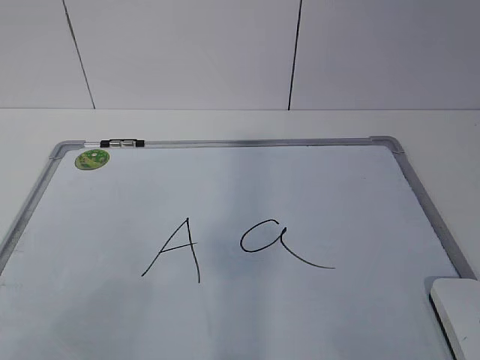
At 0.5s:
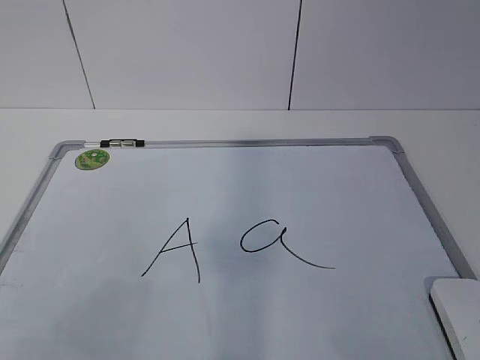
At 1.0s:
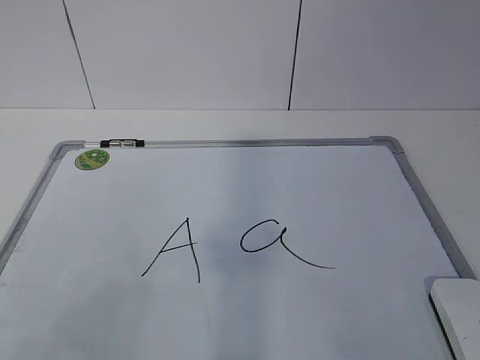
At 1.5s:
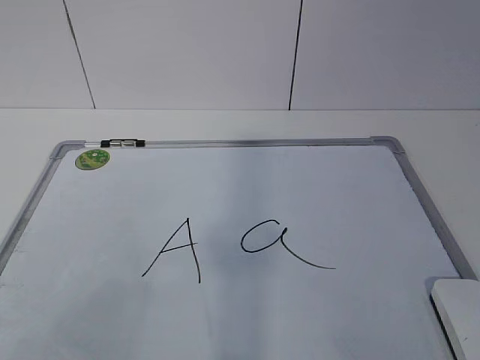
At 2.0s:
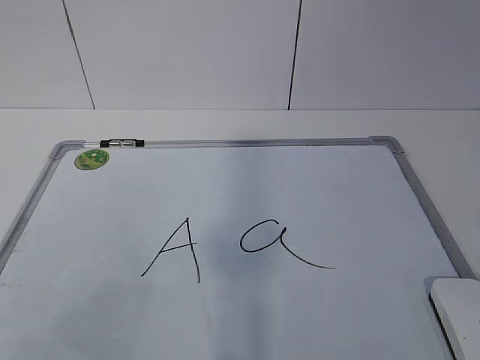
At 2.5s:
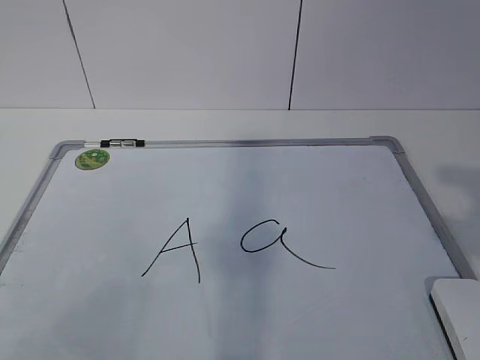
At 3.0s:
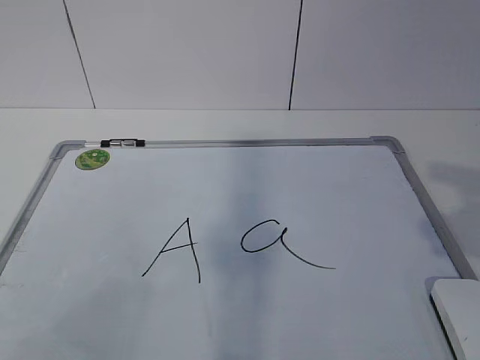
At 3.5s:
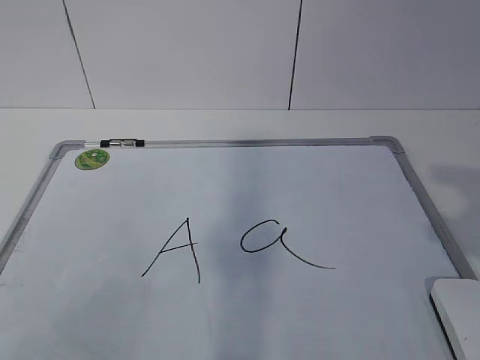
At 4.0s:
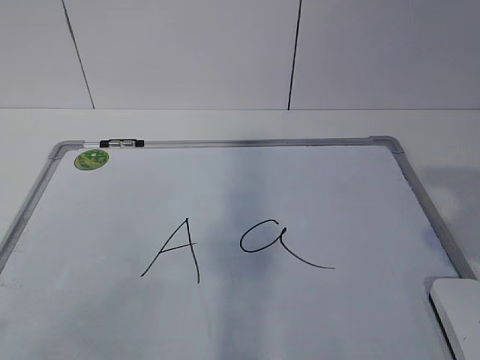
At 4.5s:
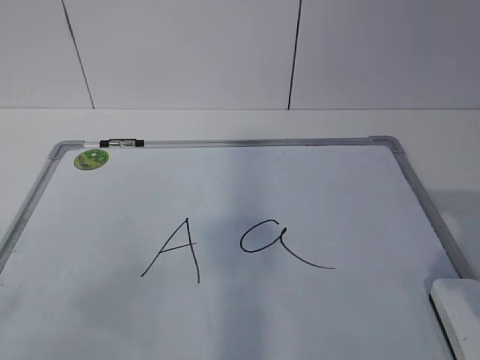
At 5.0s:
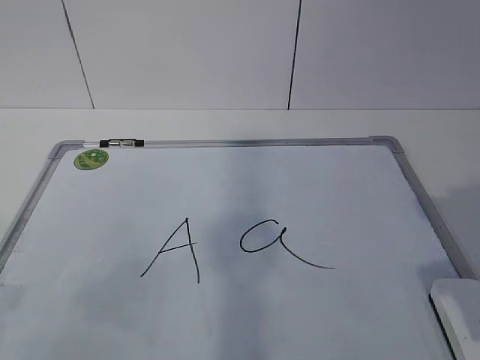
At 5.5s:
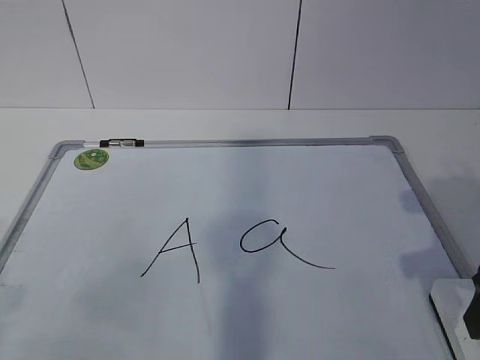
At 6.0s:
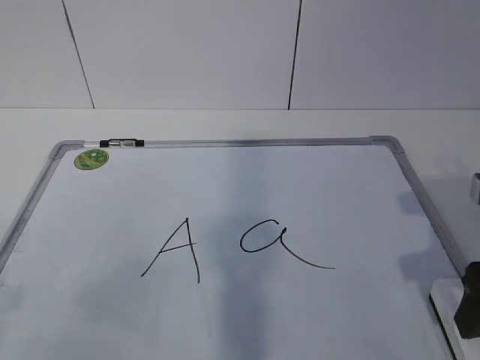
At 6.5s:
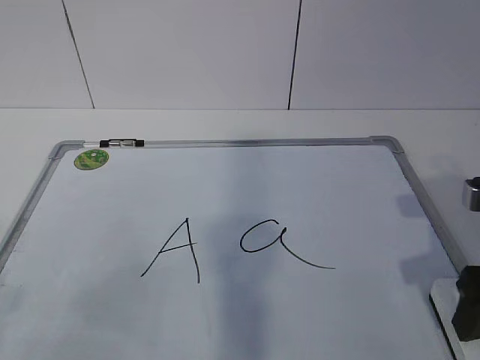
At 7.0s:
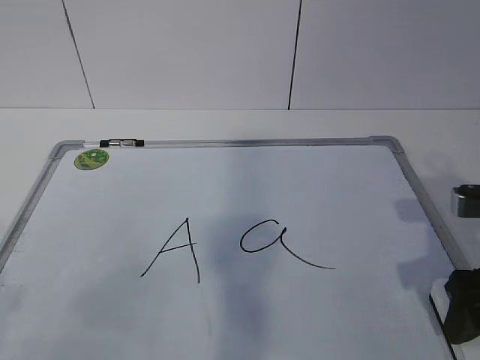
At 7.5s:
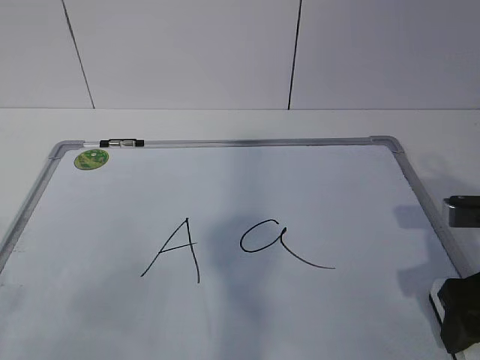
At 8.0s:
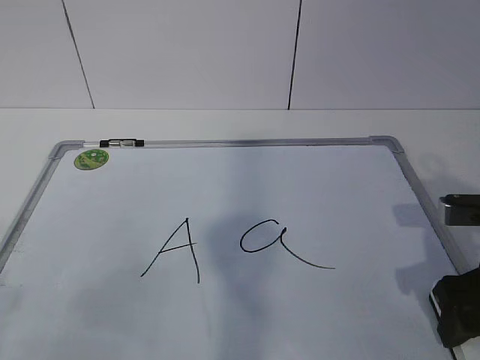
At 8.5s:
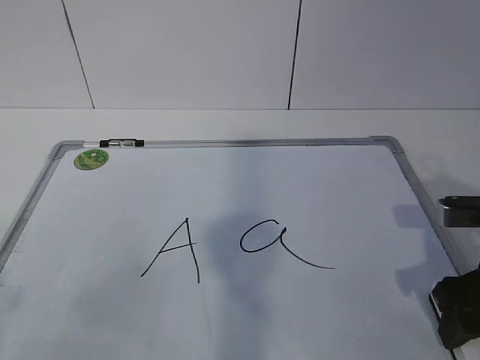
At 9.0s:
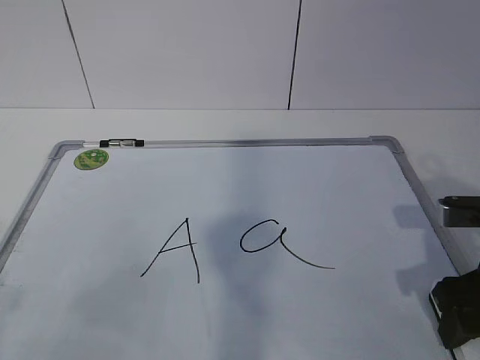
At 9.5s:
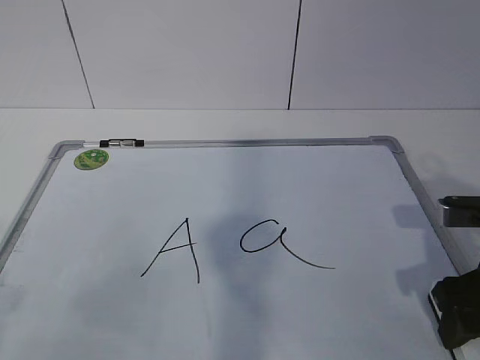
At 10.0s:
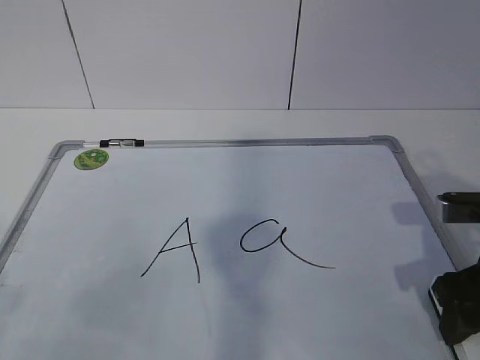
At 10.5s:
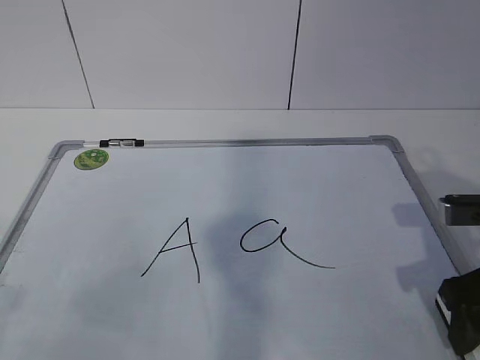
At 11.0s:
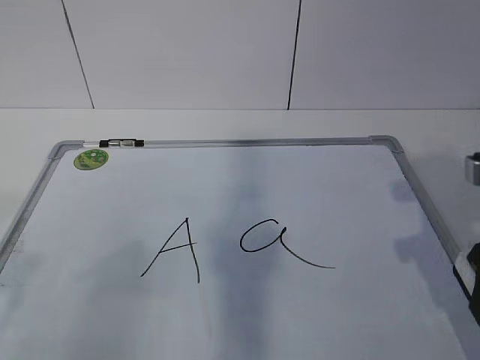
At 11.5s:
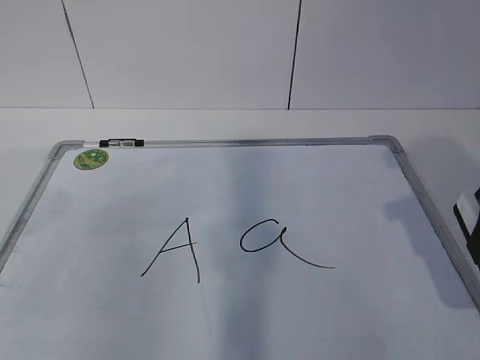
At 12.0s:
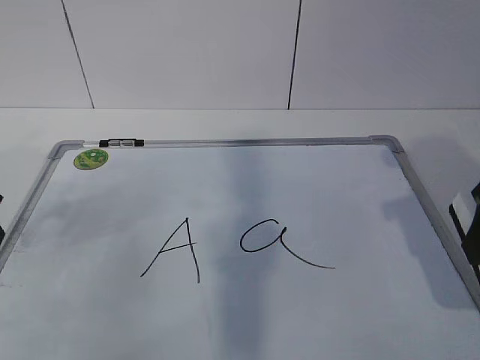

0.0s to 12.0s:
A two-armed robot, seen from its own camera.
Task of the whole recording: pick up the eraser on the blackboard and erase the letter "a".
Step, 7.0s to 11.5s: Hold the drawing board steady with your left hand.
4.0s to 6.0s: The right gripper heads downward and forward, covering approximately 15 cm.
6.0s to 8.0s: The grippers move only a little.
8.0s to 10.0s: Neither gripper changes place.
10.0s to 12.0s: The left gripper moves forward, roughly 25 cm. Meanwhile the right gripper shifts about 10 cm upward.

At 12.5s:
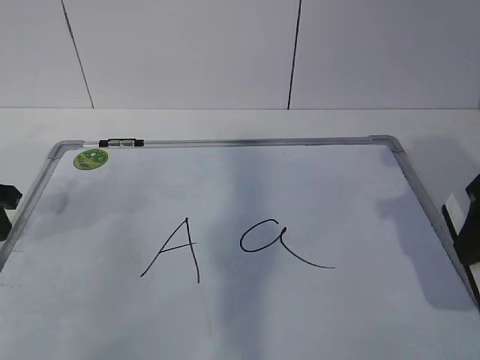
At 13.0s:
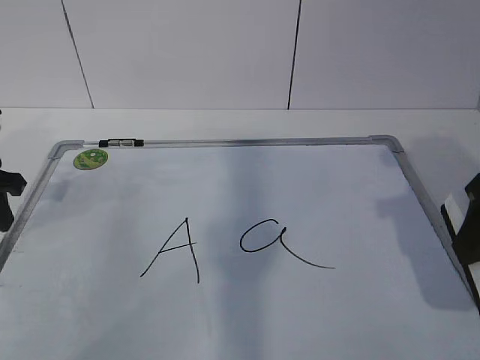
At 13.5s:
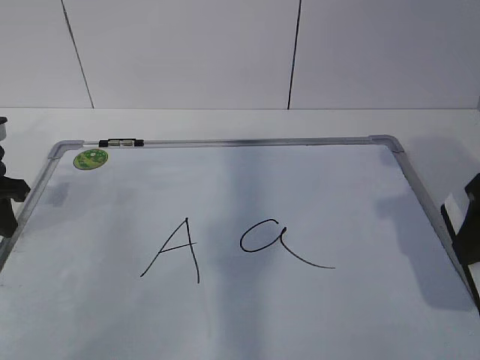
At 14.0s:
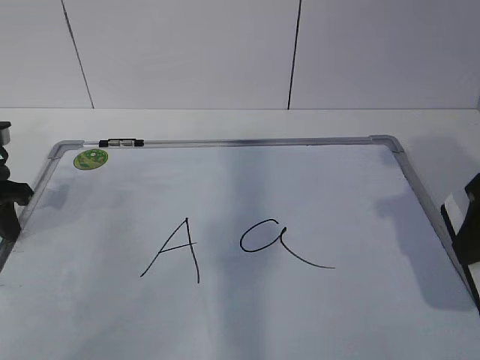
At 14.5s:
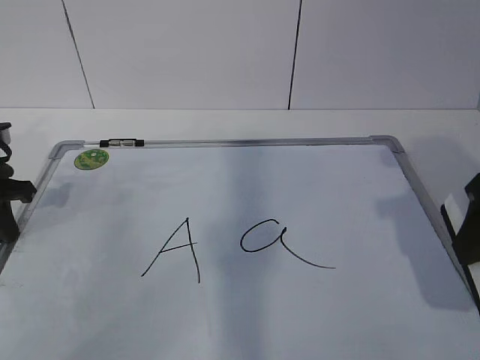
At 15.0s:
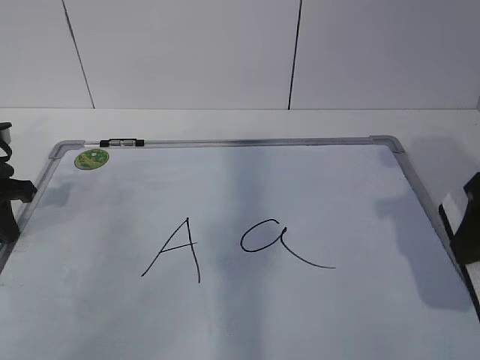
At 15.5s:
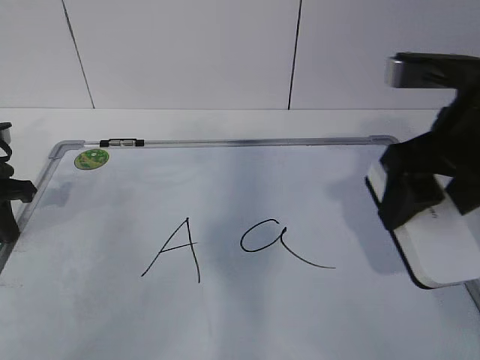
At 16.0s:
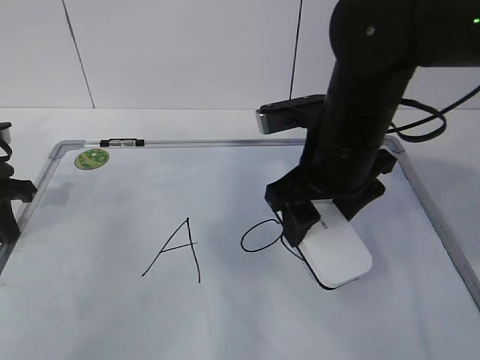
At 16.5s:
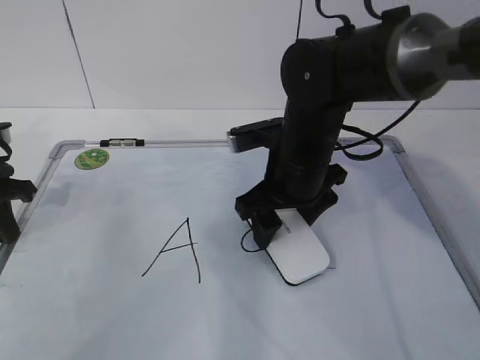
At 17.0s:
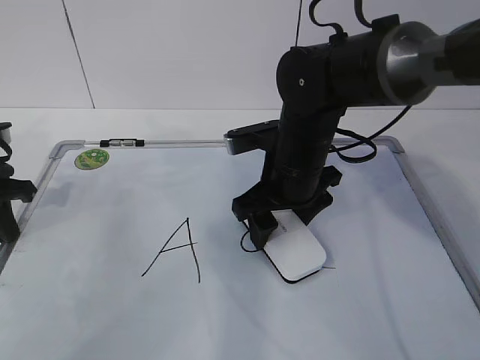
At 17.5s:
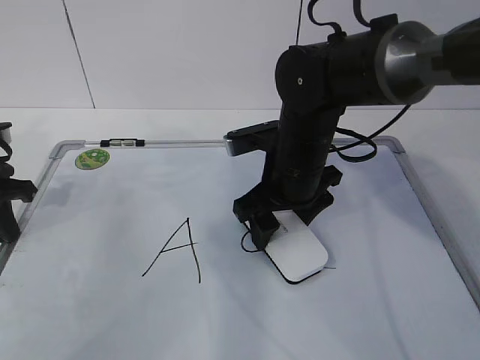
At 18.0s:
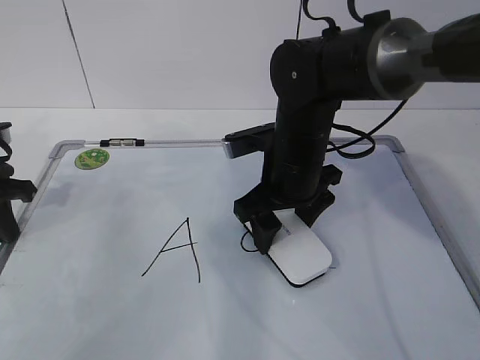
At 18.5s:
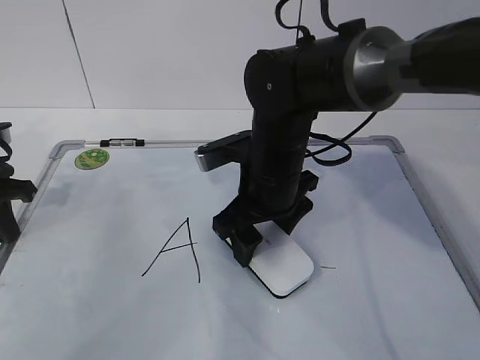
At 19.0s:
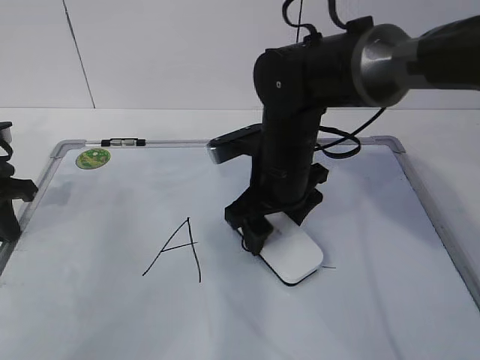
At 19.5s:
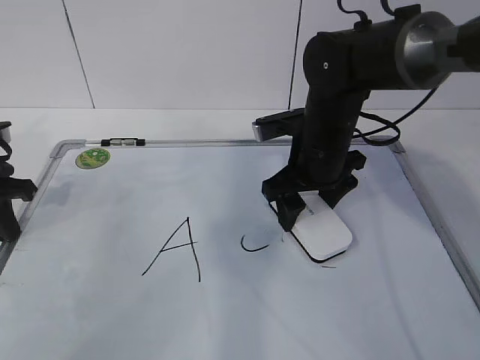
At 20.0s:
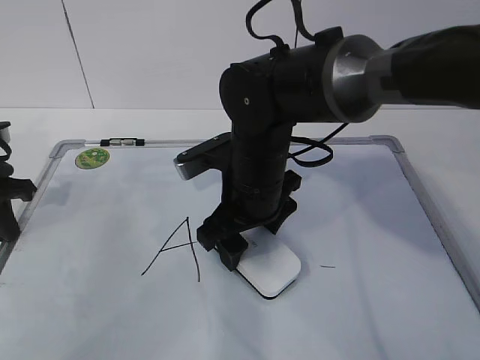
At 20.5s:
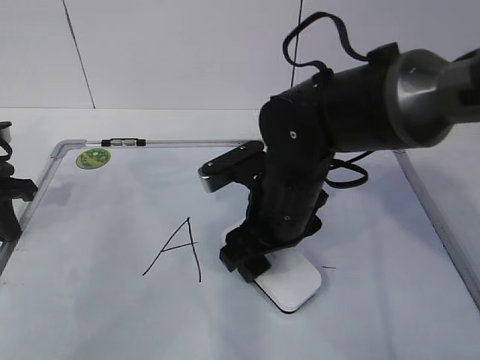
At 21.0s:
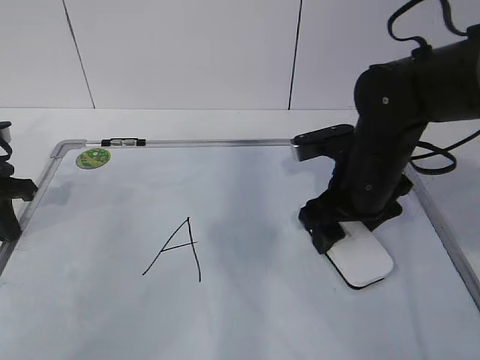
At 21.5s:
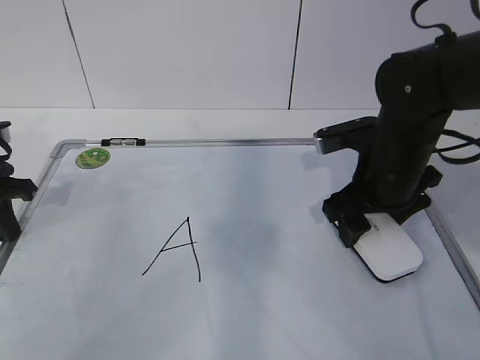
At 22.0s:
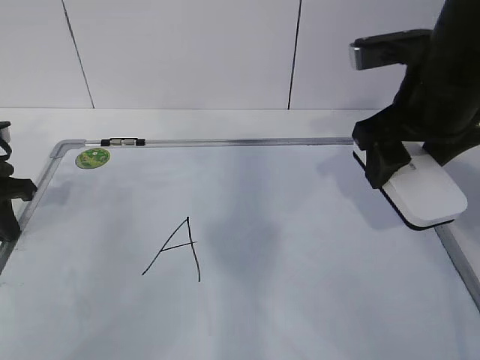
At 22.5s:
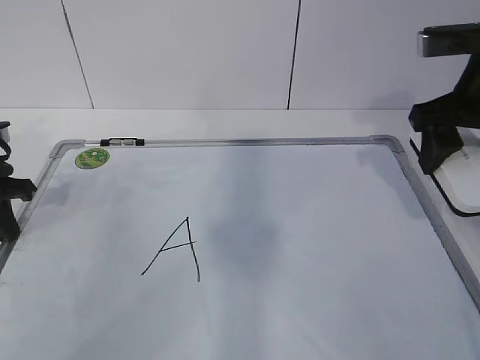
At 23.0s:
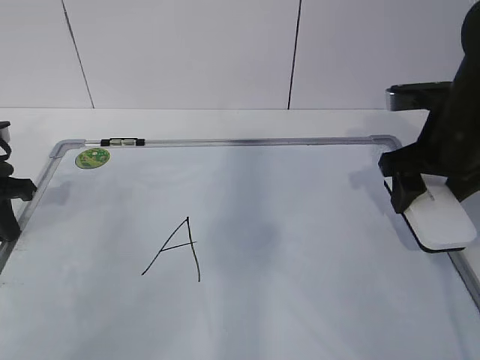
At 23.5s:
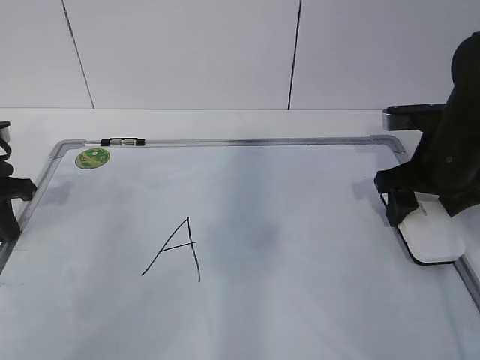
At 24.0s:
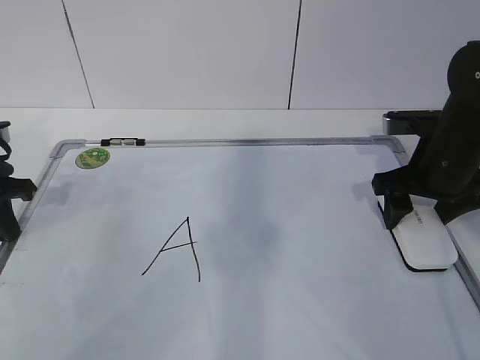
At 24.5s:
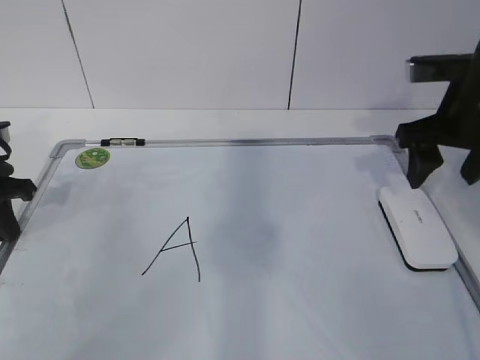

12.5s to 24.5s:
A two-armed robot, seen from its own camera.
Task of the whole recording: pick up the eraser on the blackboard and erase the letter "a".
Step, 12.5s to 17.5s: Erase the letter a with your right hand.
Step, 18.0s to 20.0s: Put down the eraser with your right hand.
12.5s to 14.5s: The left gripper closes.
14.5s to 16.5s: The right gripper heads to the left, forward and downward, covering some 25 cm.
16.5s to 18.5s: The grippers stay close to where they were, moving slightly.
18.5s to 20.5s: The right gripper reaches approximately 5 cm to the right, then returns.
20.5s to 22.5s: The right gripper is displaced to the right and upward by approximately 25 cm.

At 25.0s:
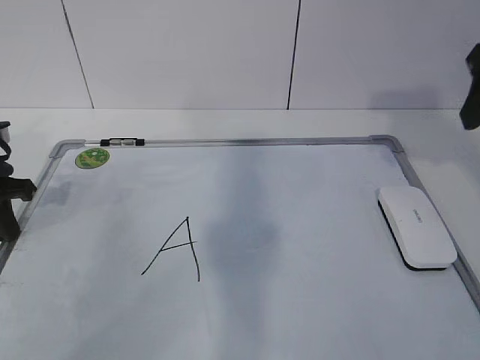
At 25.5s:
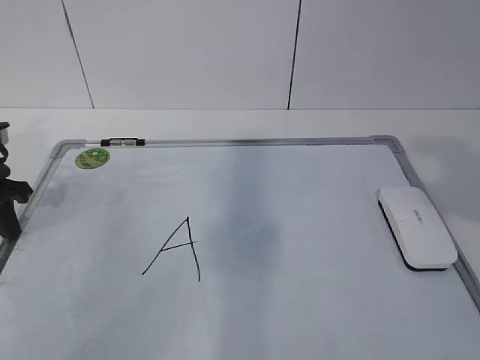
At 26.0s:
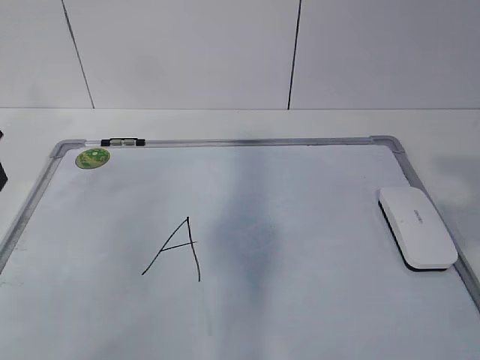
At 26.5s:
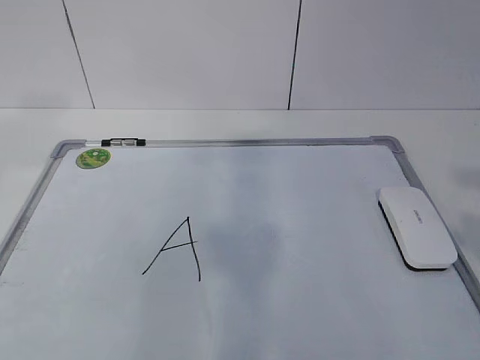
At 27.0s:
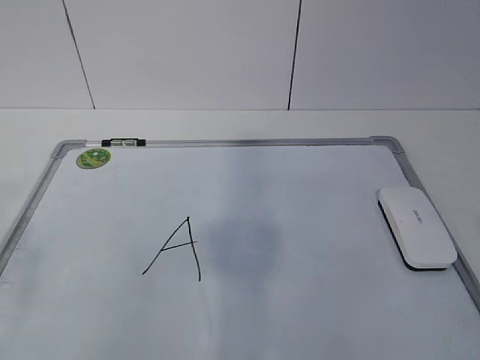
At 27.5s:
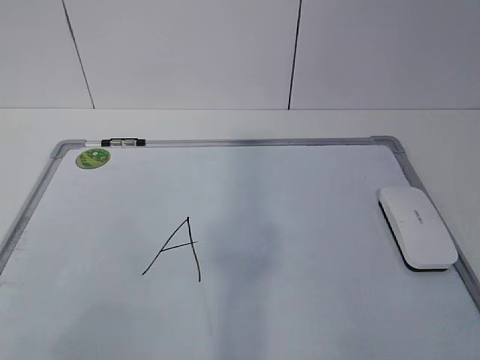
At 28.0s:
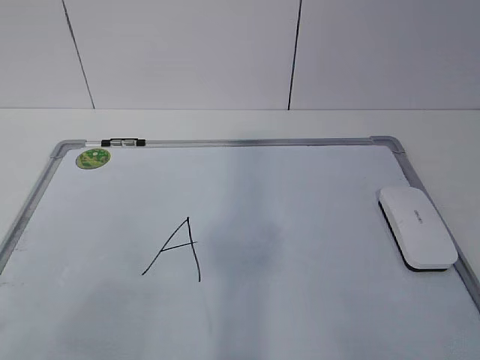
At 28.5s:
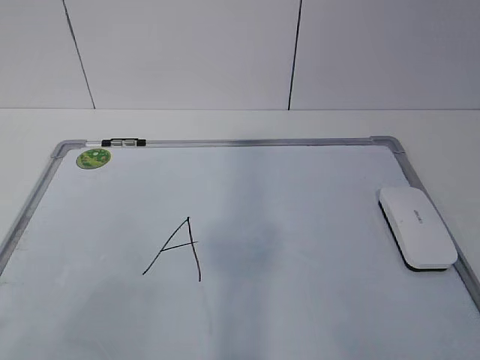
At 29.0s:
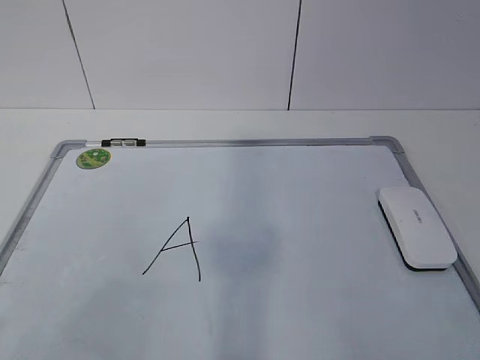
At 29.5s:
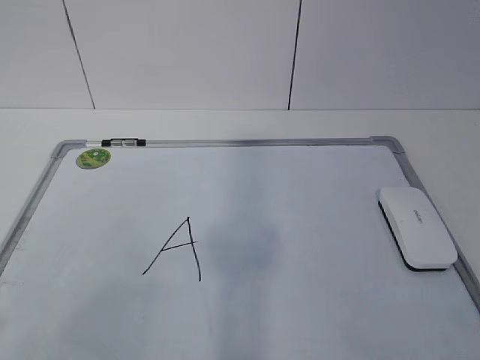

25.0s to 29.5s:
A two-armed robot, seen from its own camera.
Task of the whole recording: pick up the eraser on the blackboard and erase the letter "a".
25.0s to 27.0s: The right gripper heads backward, covering about 25 cm. The left gripper heads backward and upward, covering roughly 35 cm, and opens its fingers.
